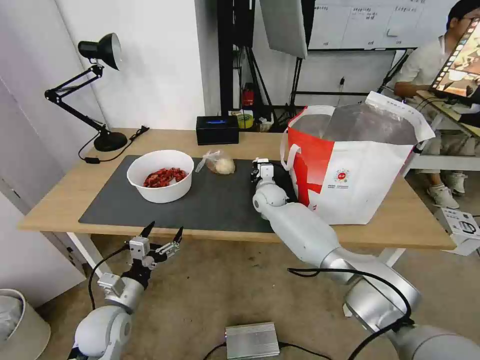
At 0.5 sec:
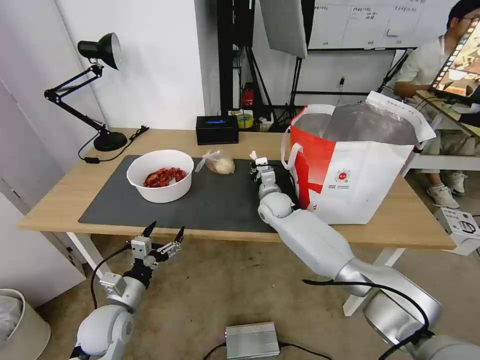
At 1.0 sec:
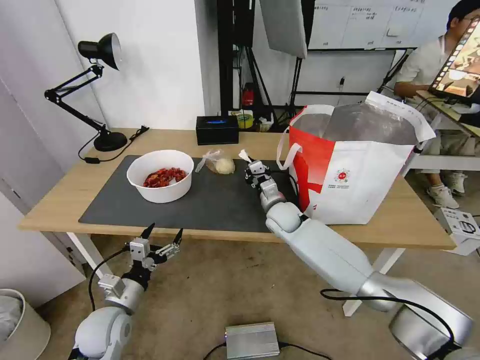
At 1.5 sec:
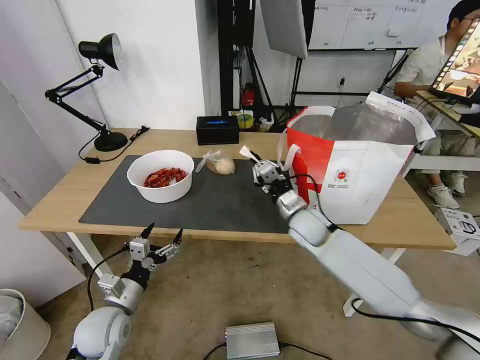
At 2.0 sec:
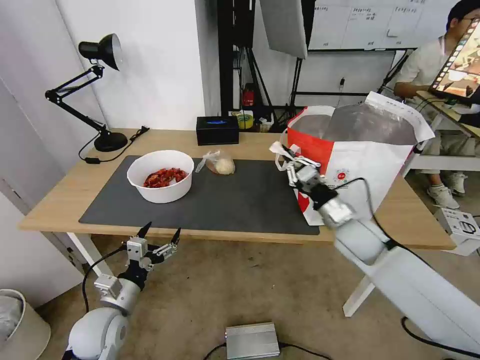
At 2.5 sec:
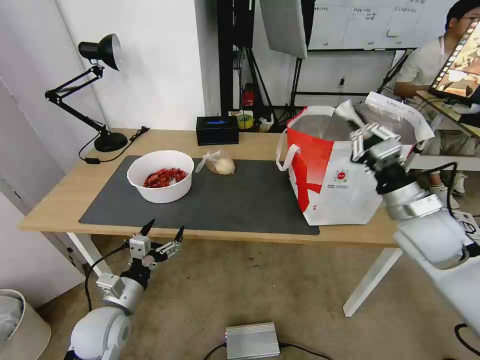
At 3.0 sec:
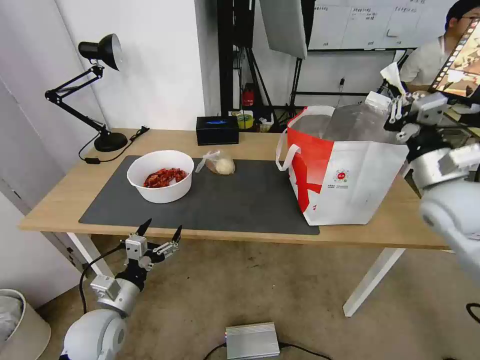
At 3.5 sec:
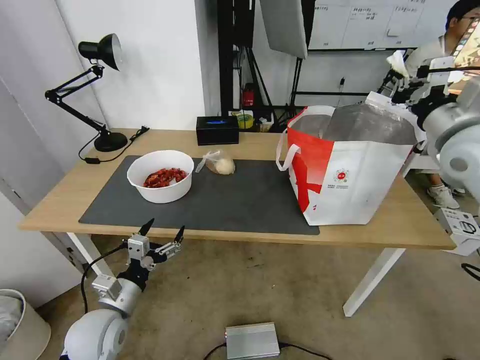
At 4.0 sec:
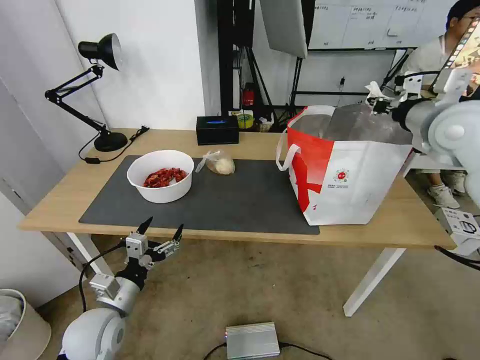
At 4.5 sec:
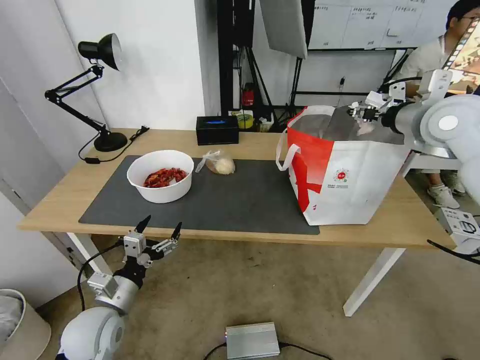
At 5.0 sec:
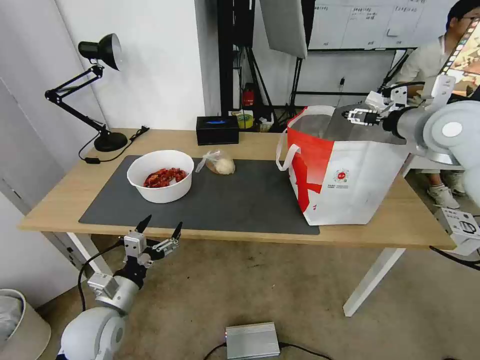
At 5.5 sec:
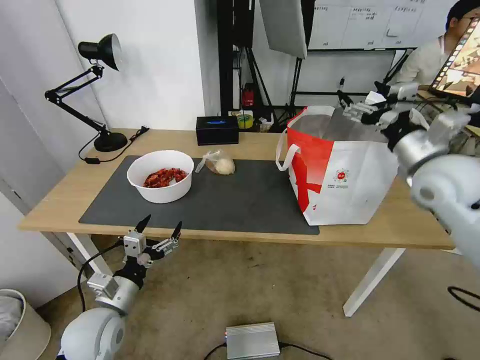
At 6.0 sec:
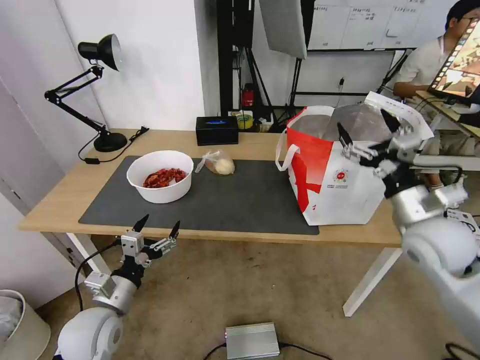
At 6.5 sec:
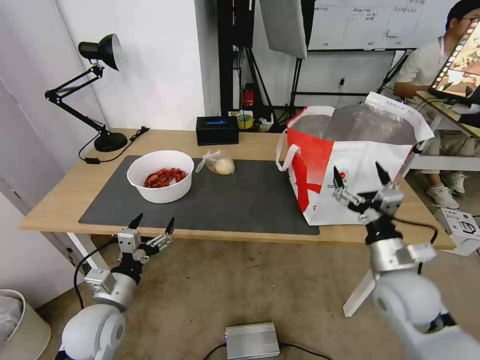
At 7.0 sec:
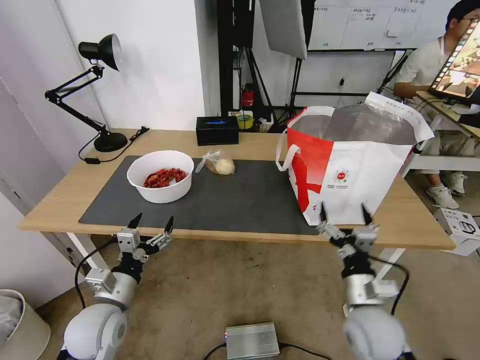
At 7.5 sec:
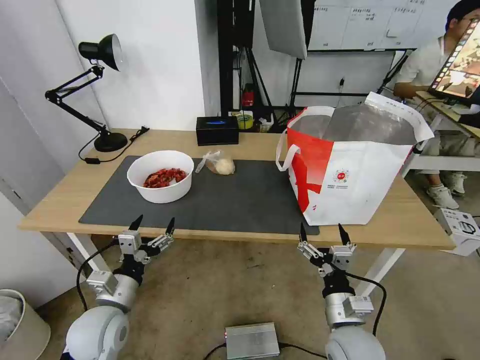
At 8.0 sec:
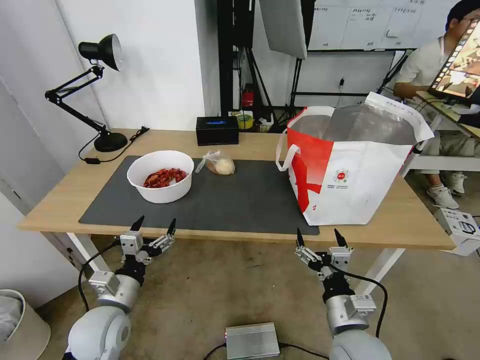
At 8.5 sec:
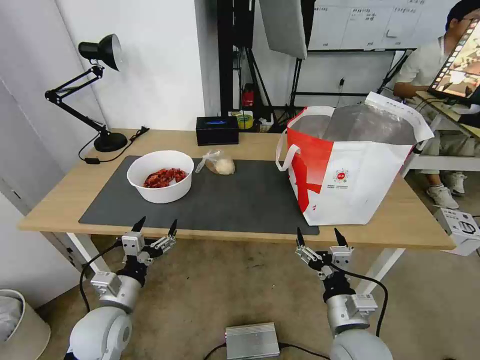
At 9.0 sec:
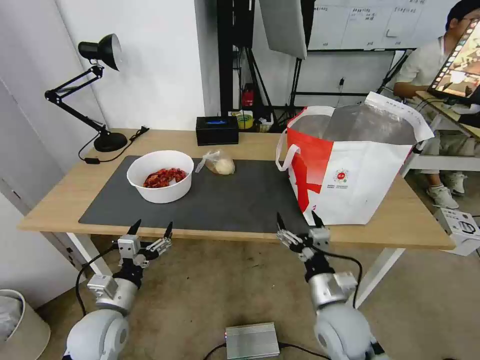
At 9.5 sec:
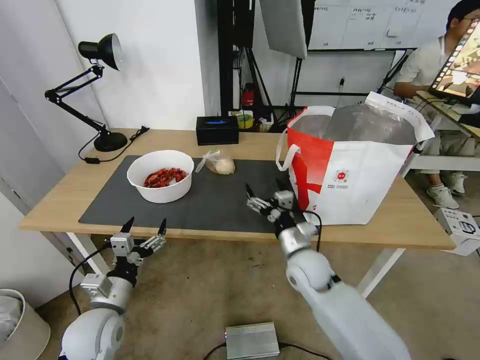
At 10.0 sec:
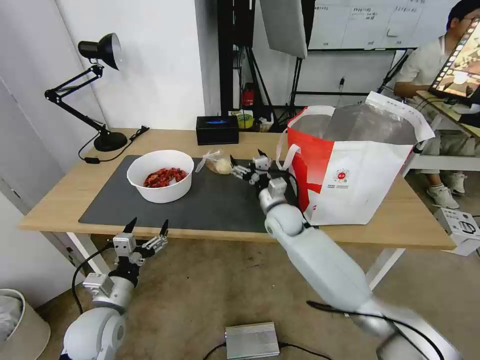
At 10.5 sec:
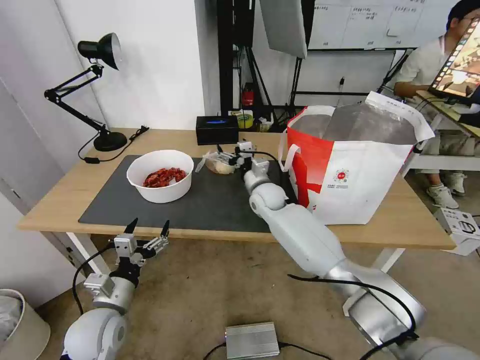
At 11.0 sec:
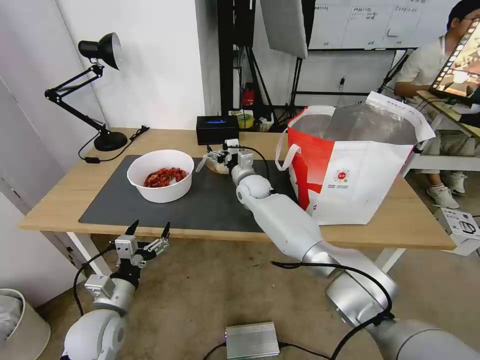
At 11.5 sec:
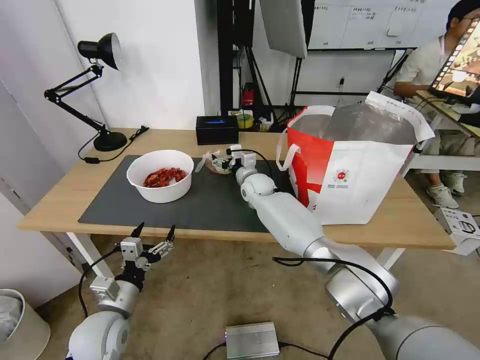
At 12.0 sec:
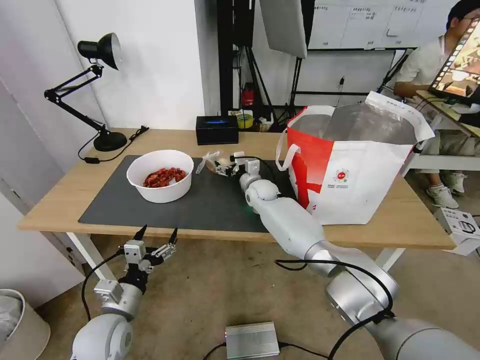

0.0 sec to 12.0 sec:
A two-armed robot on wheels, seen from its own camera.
Task of the whole recording: Pick up the trash from the table and place it into the takeout bag.
0.0 sec to 2.0 sec: The right gripper is displaced backward and to the right by approximately 25 cm.
2.0 sec to 4.0 sec: The right gripper heads upward and to the right, covering about 25 cm.
4.0 sec to 6.0 sec: The right gripper travels downward and backward by some 20 cm, and opens up.
6.0 sec to 8.0 sec: The right gripper travels downward, backward and to the left by about 25 cm.
8.0 sec to 10.0 sec: The right gripper goes some 30 cm forward.
10.0 sec to 12.0 sec: The right gripper travels forward by about 10 cm.

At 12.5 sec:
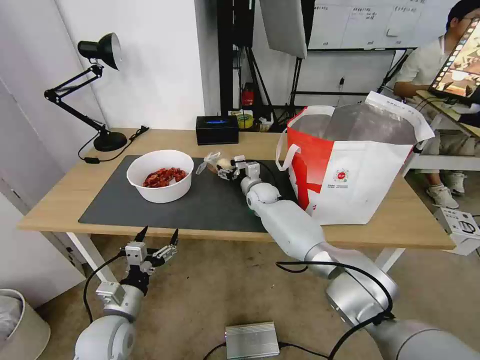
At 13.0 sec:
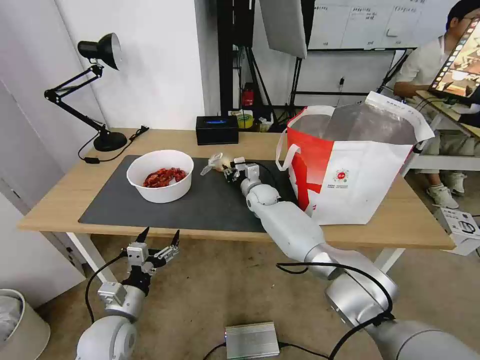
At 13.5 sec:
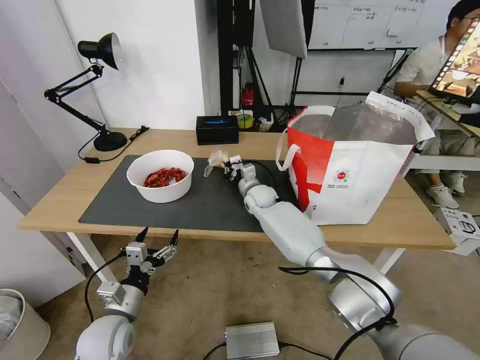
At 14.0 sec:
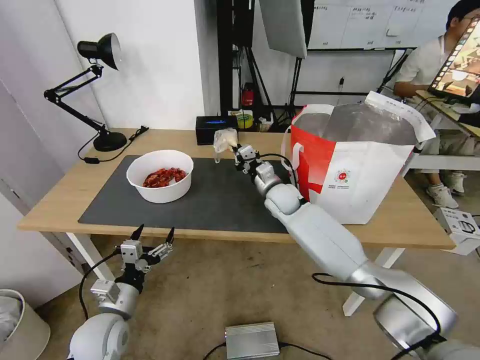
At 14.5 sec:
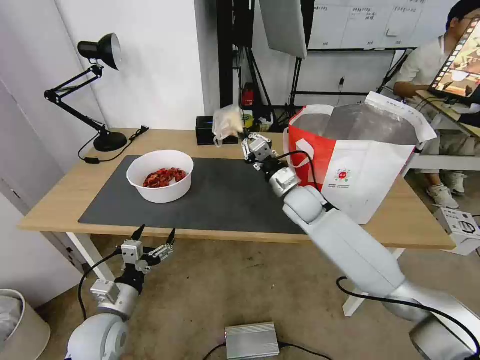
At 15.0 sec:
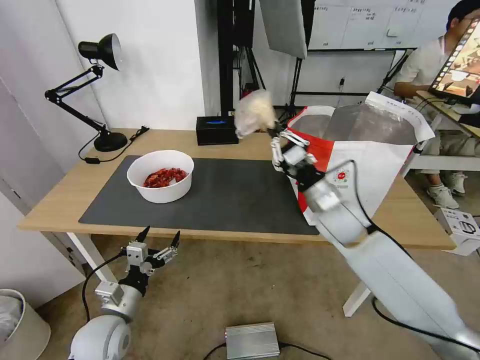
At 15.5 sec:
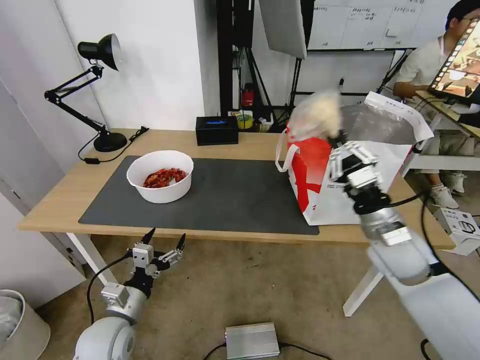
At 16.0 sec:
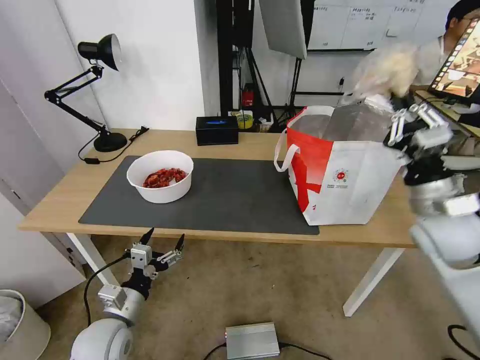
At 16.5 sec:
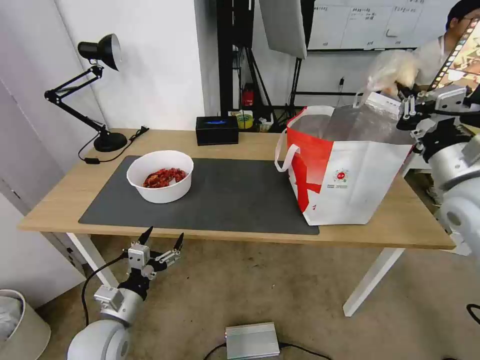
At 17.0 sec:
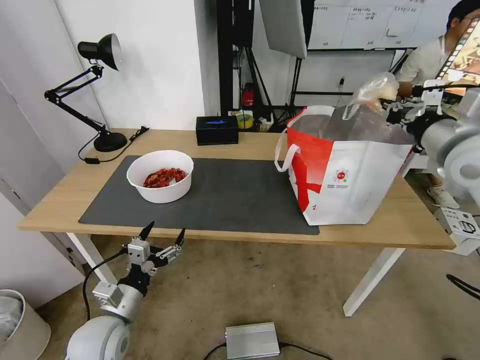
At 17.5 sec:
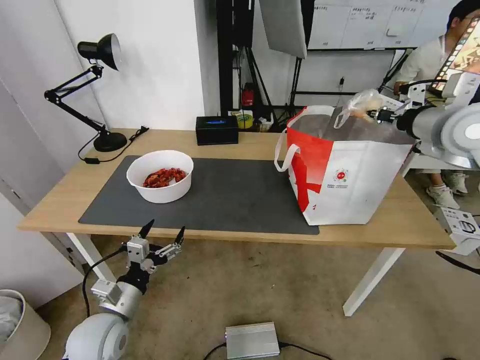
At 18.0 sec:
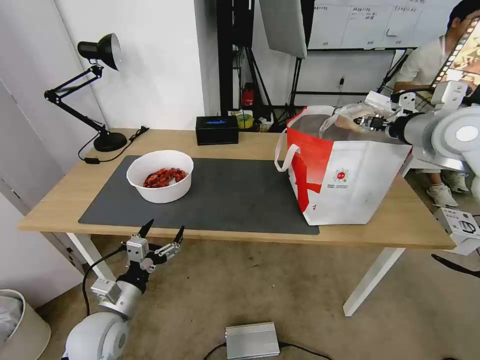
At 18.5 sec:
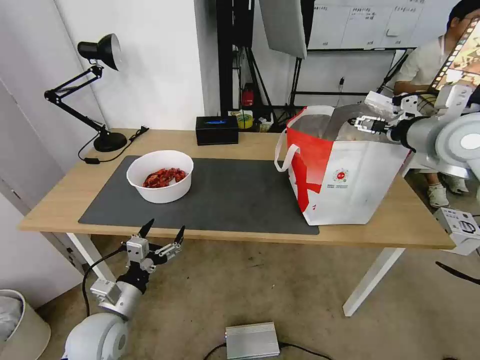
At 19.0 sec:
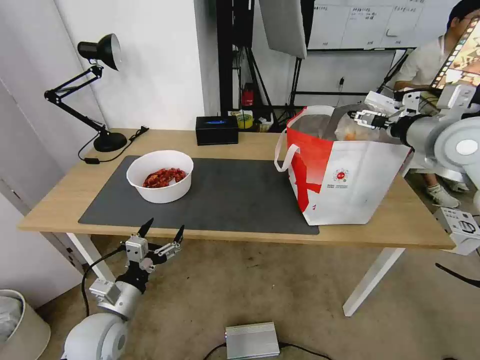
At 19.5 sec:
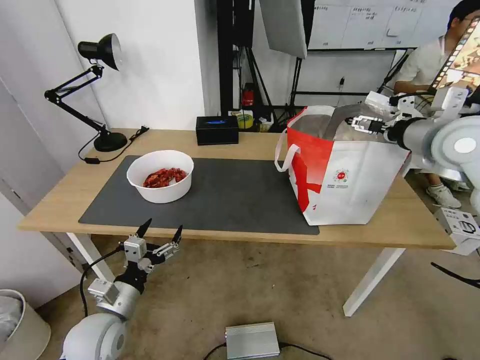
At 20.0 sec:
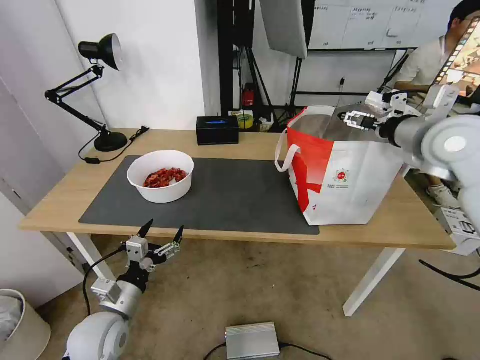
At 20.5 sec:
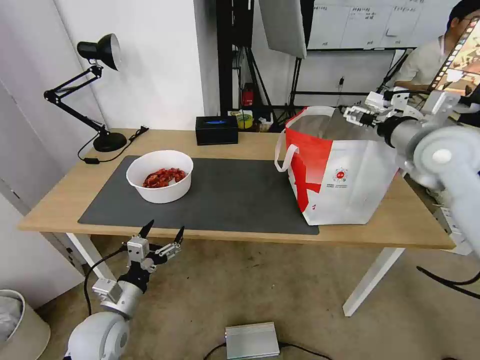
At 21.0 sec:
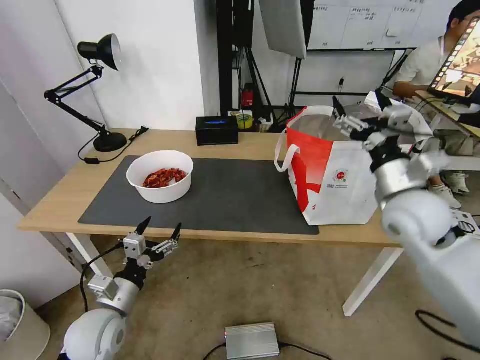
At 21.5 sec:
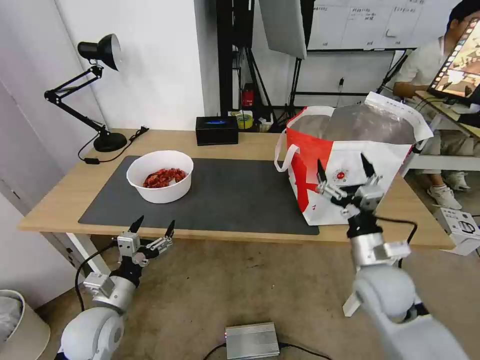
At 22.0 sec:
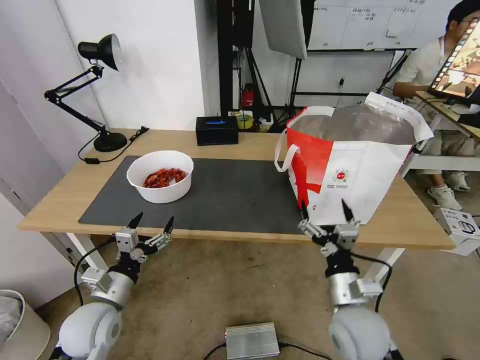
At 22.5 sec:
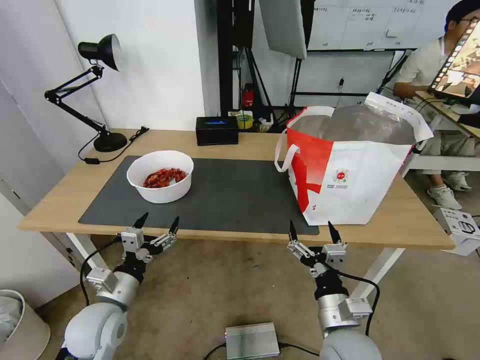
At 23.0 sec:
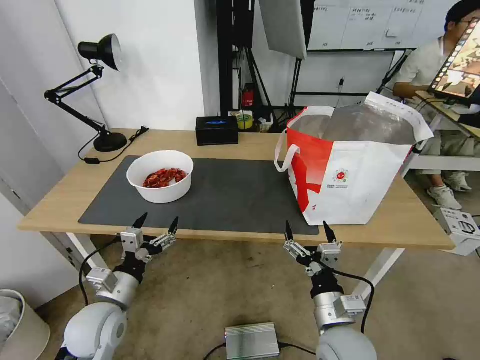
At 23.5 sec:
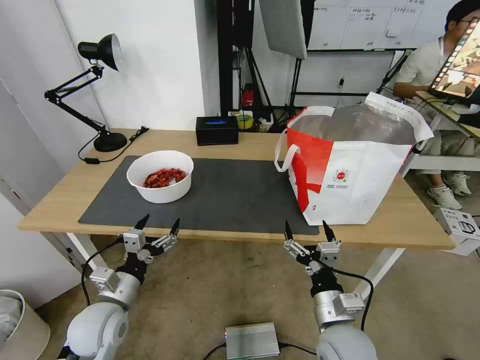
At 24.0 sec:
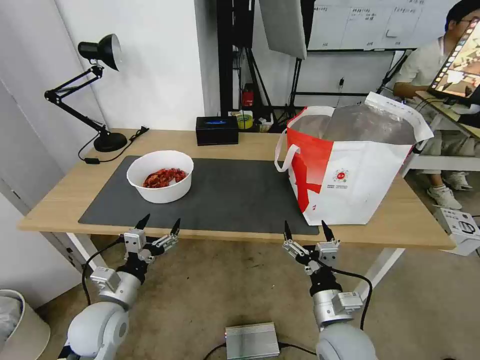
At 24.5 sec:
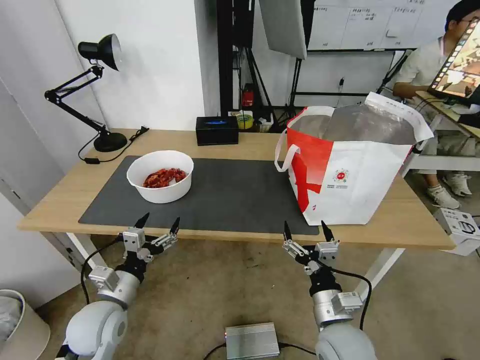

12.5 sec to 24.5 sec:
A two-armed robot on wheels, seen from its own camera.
Task of the whole recording: Pick up the trash from the table and place it into the takeout bag.
12.5 sec to 14.5 sec: The right gripper heads backward, to the right and upward, covering some 15 cm, and closes up.
14.5 sec to 16.5 sec: The right gripper travels to the right, upward and backward by about 30 cm.
16.5 sec to 18.5 sec: The right gripper shifts roughly 10 cm forward and upward, and opens its fingers.
18.5 sec to 20.5 sec: There are only small adjustments of the grippers.
20.5 sec to 22.5 sec: The right gripper travels downward, backward and to the left by some 40 cm.
22.5 sec to 24.5 sec: The grippers move only a little.

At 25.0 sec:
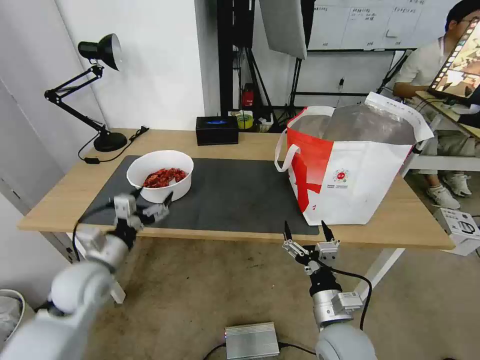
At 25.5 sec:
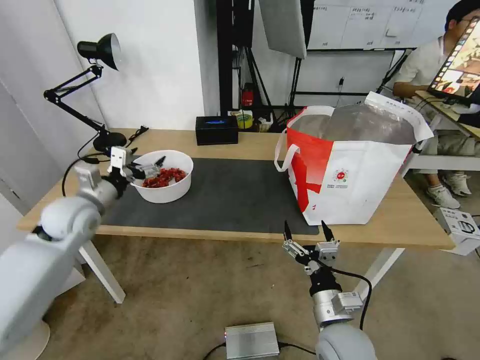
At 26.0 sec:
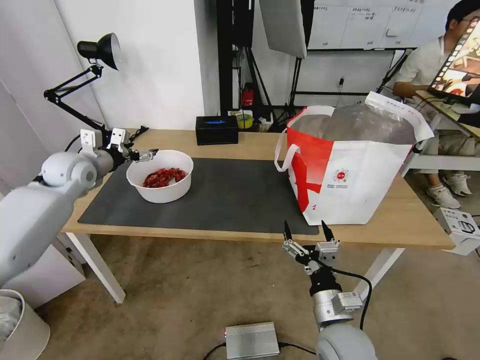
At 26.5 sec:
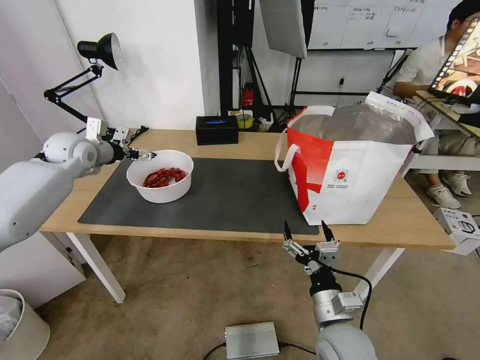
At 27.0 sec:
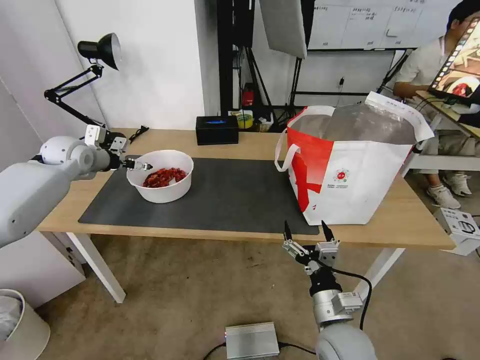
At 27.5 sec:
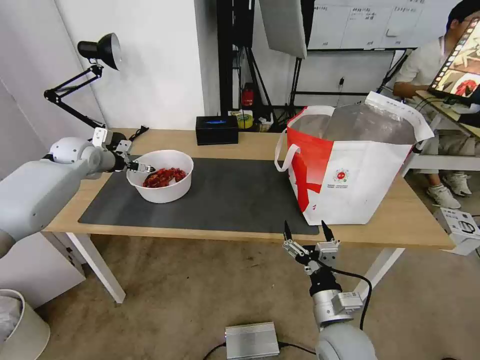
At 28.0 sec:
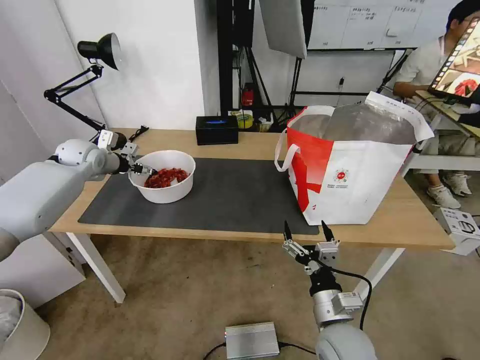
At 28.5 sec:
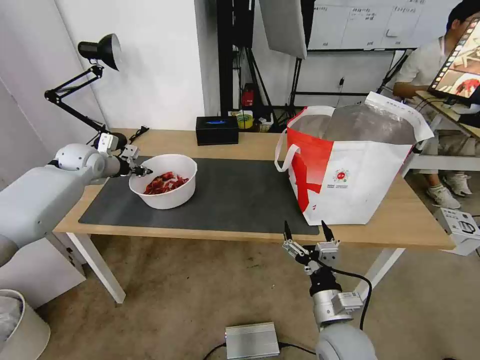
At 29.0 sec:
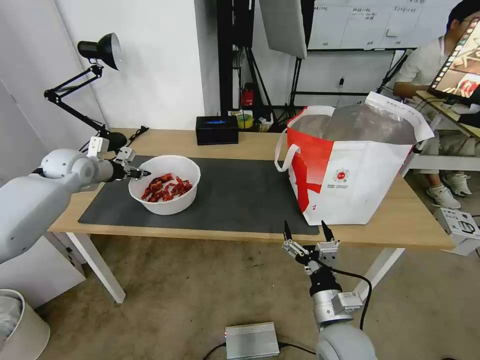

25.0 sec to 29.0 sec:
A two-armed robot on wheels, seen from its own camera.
Task of the whole recording: Pick up the trash from the table and place it into the takeout bag.
25.0 sec to 27.0 sec: The left gripper goes about 30 cm forward, upward and to the left.
27.0 sec to 29.0 sec: The left gripper closes.
